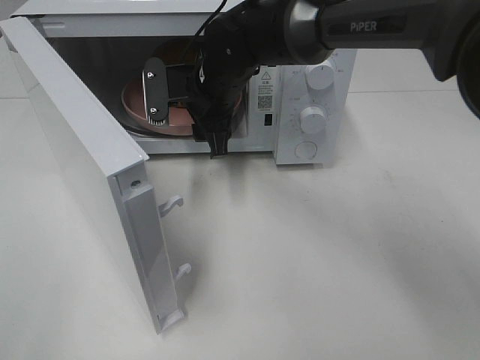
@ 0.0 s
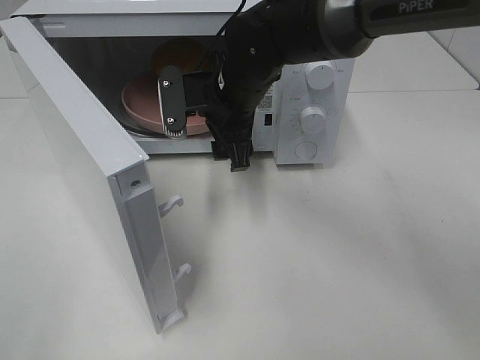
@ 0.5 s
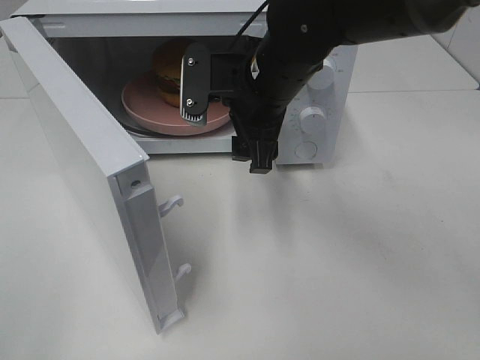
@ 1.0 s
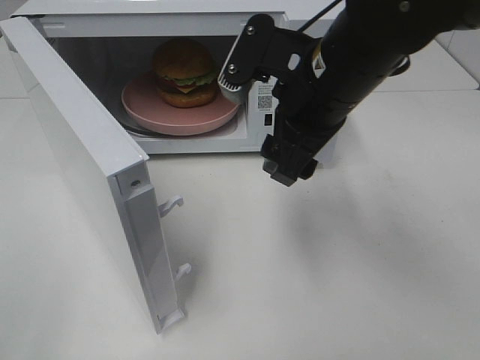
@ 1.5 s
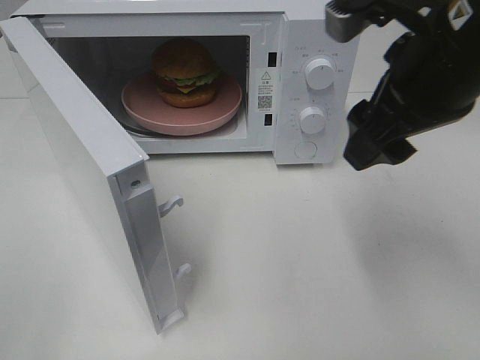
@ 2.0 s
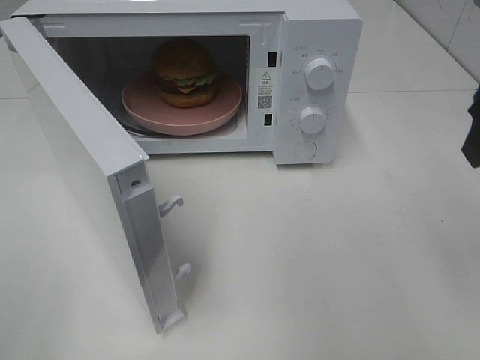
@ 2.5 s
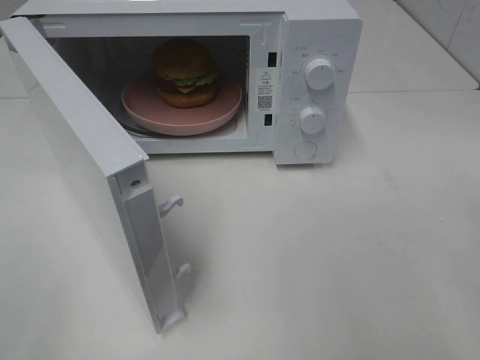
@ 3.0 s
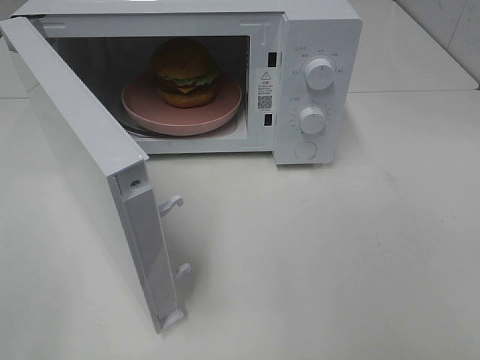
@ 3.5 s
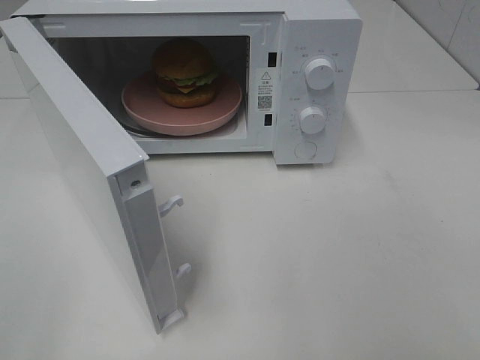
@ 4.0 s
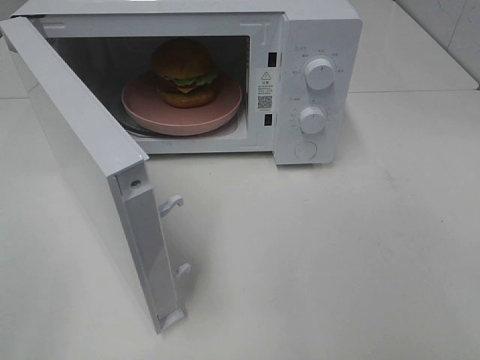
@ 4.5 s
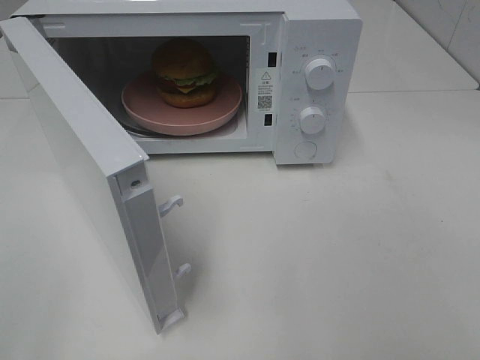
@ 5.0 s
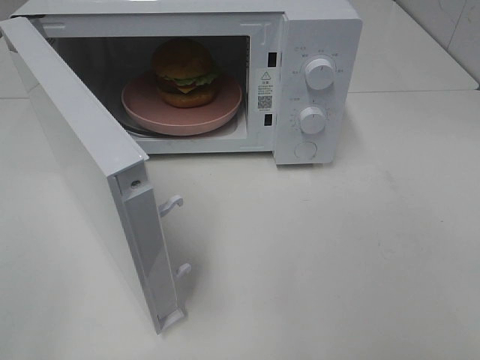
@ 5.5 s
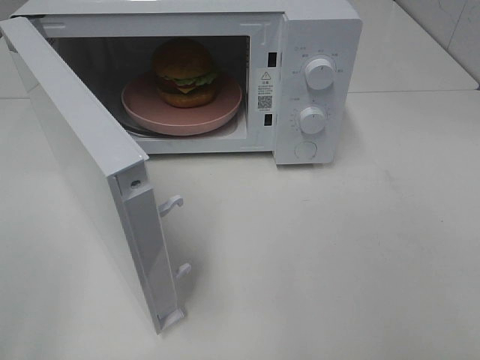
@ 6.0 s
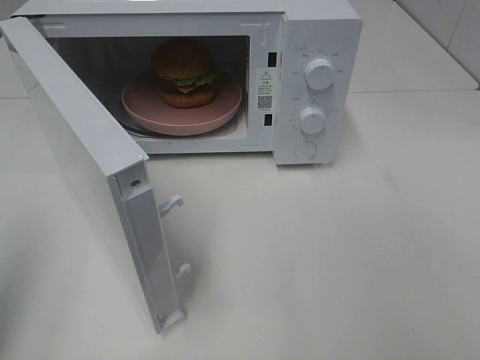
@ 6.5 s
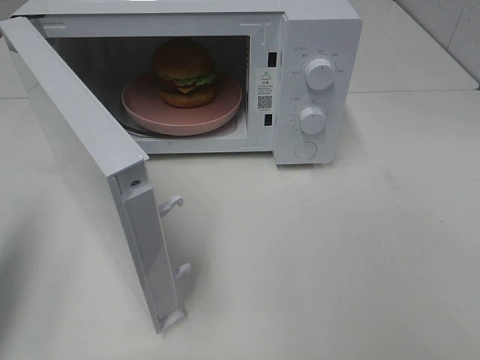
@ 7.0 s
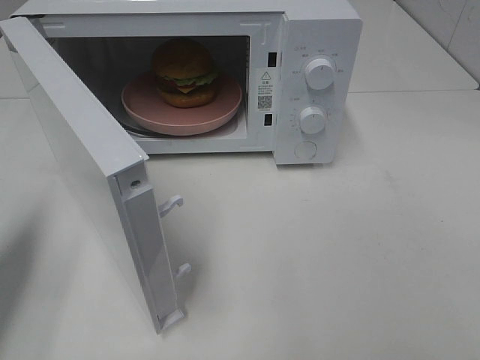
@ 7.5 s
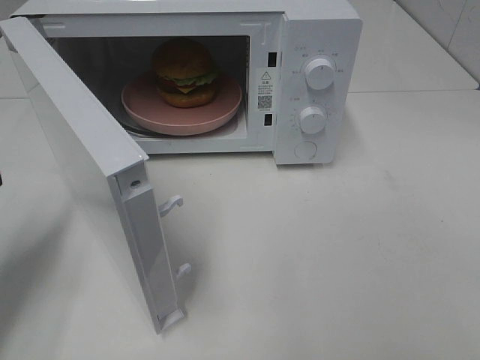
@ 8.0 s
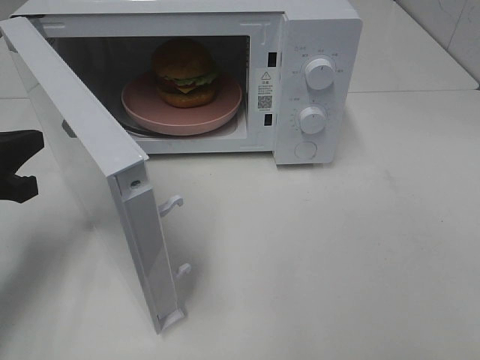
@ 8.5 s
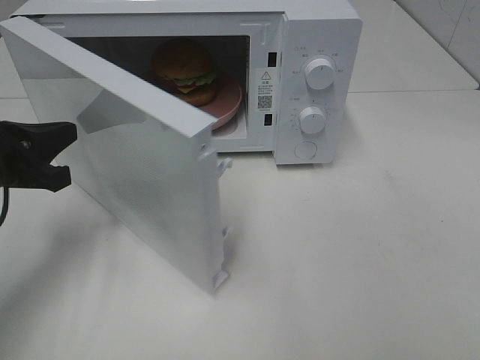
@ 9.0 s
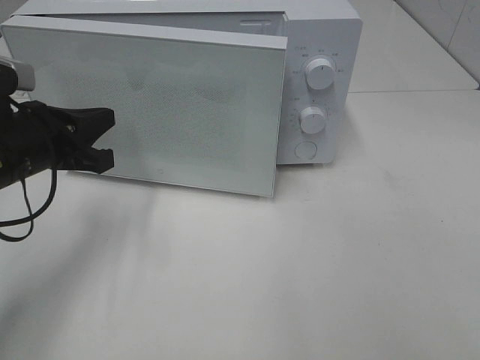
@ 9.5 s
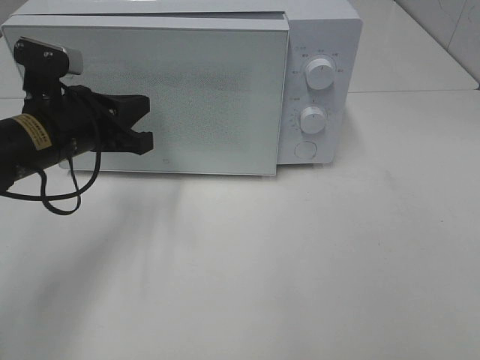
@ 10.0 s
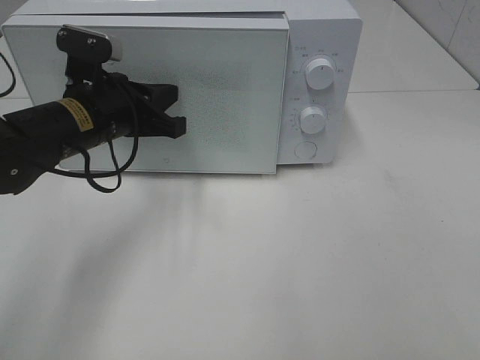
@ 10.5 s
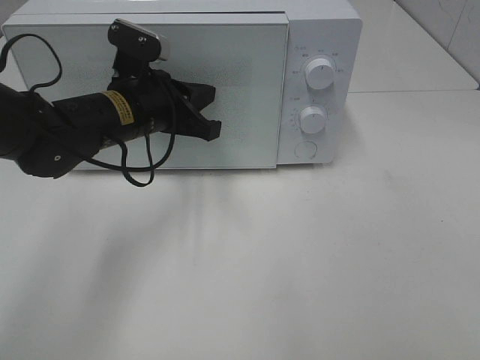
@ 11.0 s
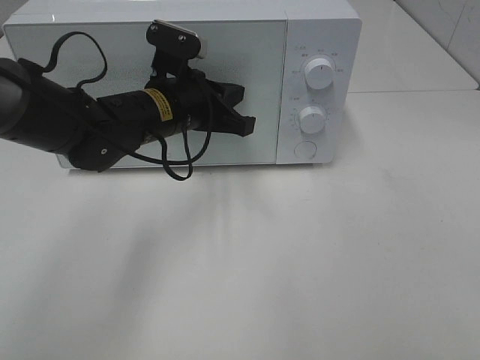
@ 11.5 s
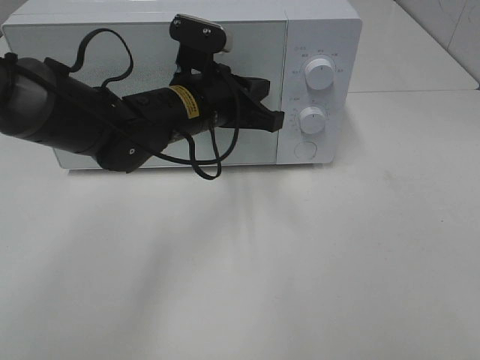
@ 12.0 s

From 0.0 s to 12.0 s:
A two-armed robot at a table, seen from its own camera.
Task of the whole recording: Heat the burger.
Step, from 0.0 s to 12.0 s: Left hand: close the microwave door.
From 0.0 s to 2.0 s: The right gripper moves to the right, backward and upward, some 30 cm.
From 2.0 s to 4.0 s: The right gripper goes about 25 cm backward and to the right.
From 6.0 s to 8.0 s: The left gripper is displaced forward and downward by roughly 25 cm, and closes its fingers.
From 8.0 s to 10.0 s: The left gripper heads to the right and forward, covering approximately 15 cm.
From 10.0 s to 12.0 s: The left gripper is displaced to the right by approximately 15 cm.

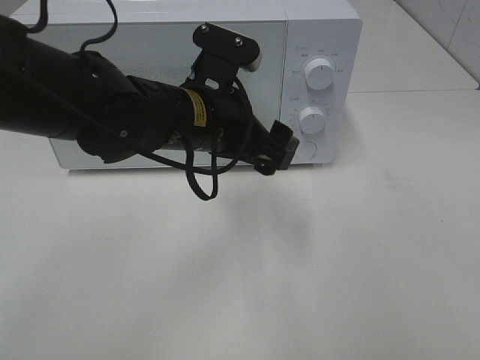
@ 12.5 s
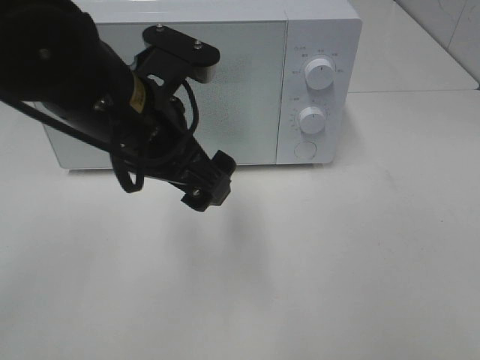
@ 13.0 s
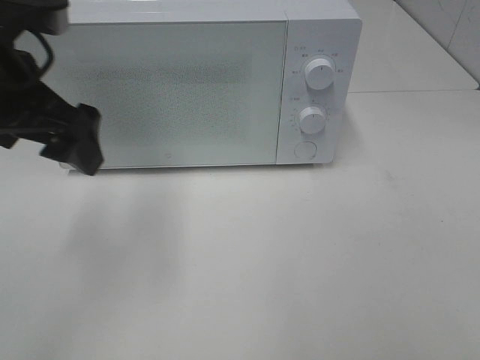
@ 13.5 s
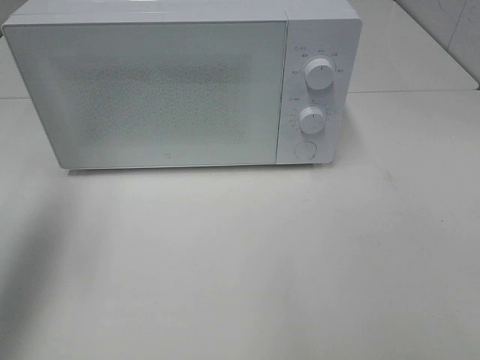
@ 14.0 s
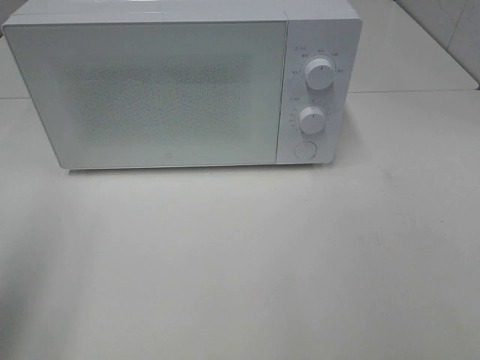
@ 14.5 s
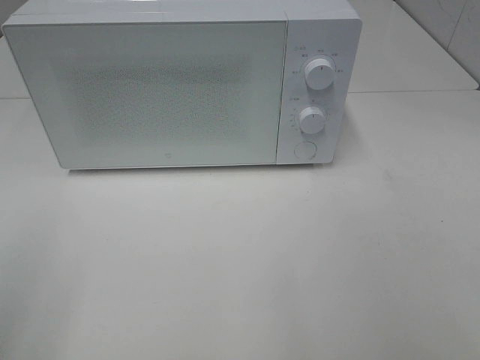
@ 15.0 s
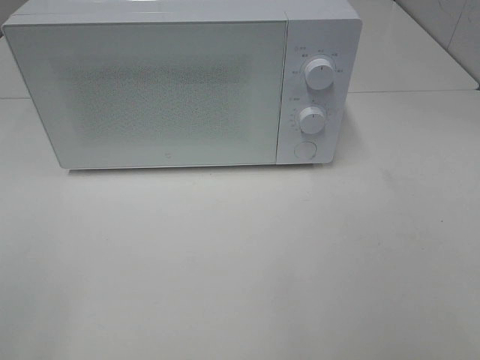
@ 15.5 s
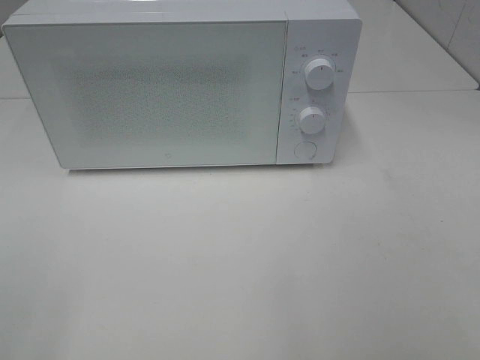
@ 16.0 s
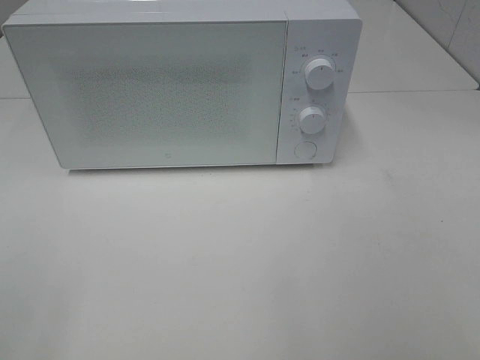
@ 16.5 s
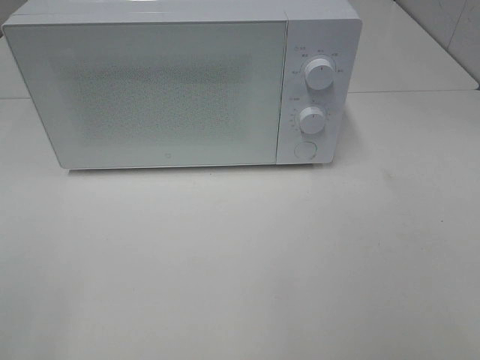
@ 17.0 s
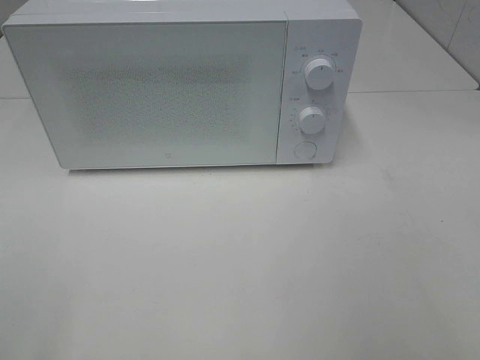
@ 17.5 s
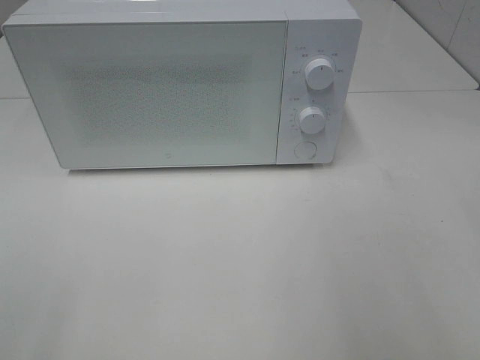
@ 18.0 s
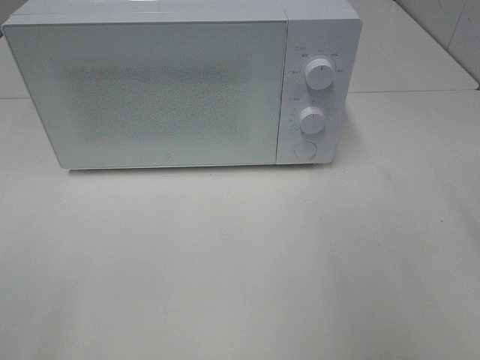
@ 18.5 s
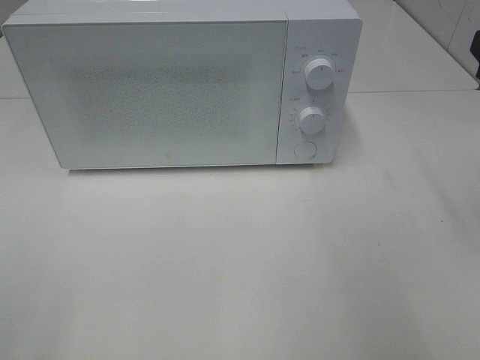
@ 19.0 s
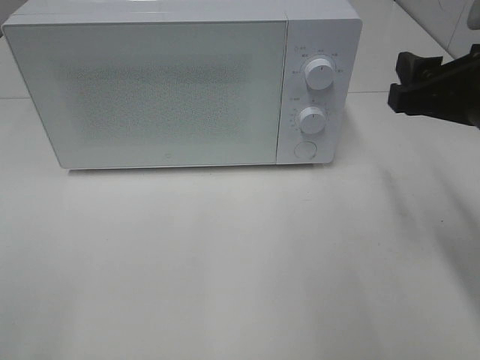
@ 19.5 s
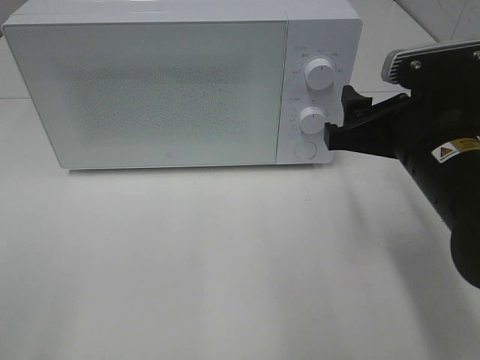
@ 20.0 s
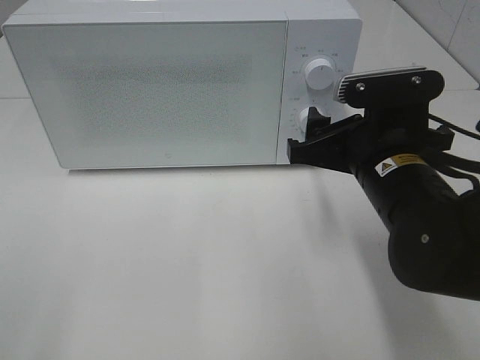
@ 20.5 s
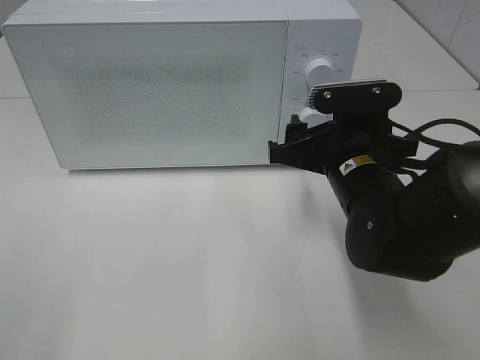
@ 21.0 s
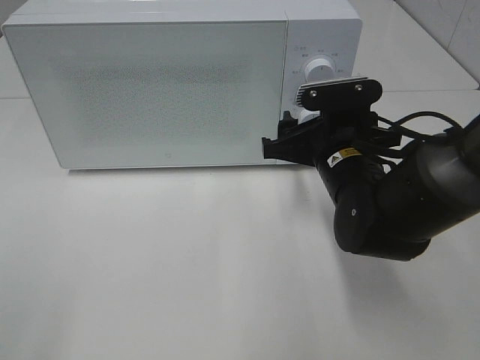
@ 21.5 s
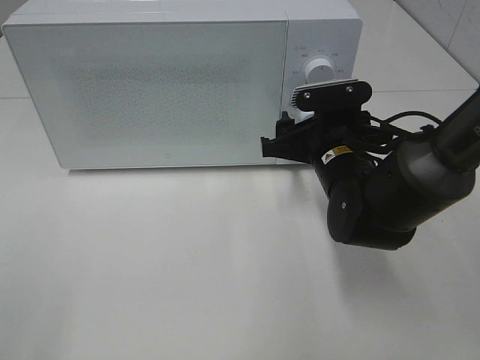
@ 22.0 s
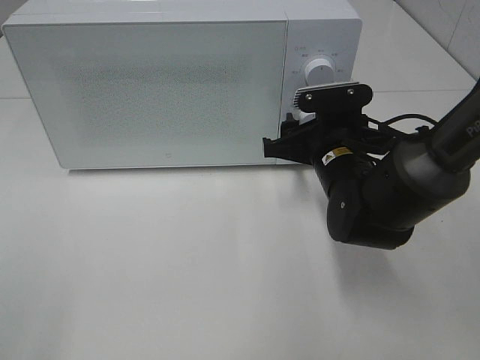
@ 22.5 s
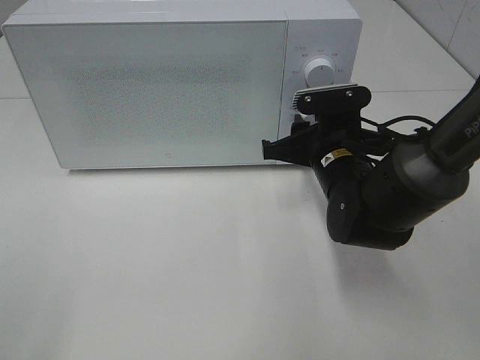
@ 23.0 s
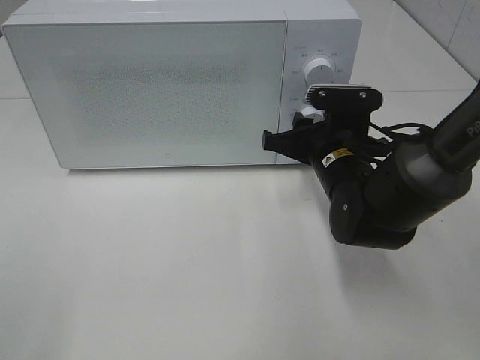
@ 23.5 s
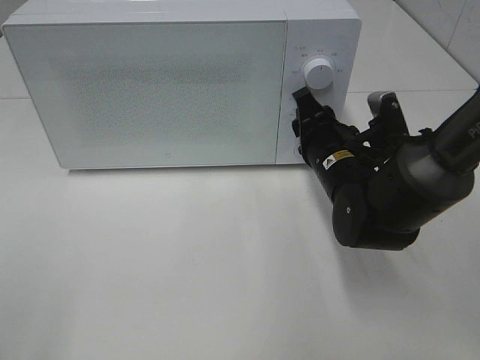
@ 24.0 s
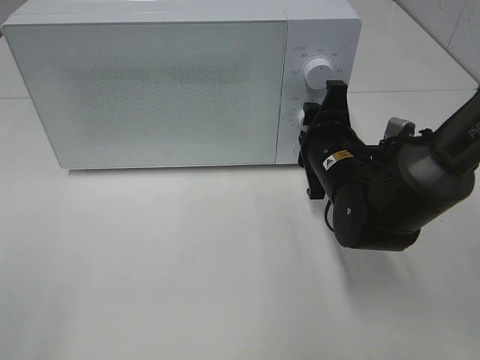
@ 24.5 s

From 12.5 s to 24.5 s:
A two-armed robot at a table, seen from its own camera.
Task of the whole recording: Heat the burger.
From 12.5 s to 14.5 s: The left gripper is displaced to the left and backward by about 30 cm.
From 14.5 s to 16.5 s: The left gripper is displaced backward by approximately 15 cm.
From 18.5 s to 20.5 s: The right gripper is displaced to the left, downward and forward by some 20 cm.
From 20.5 s to 22.5 s: The right gripper heads forward and downward, covering roughly 10 cm.

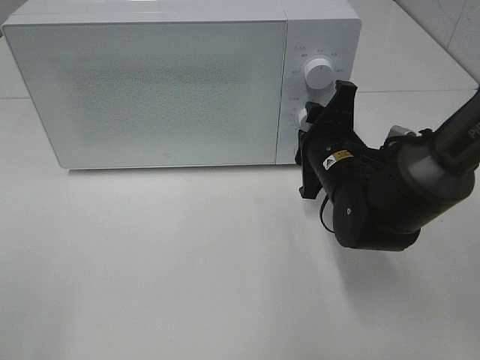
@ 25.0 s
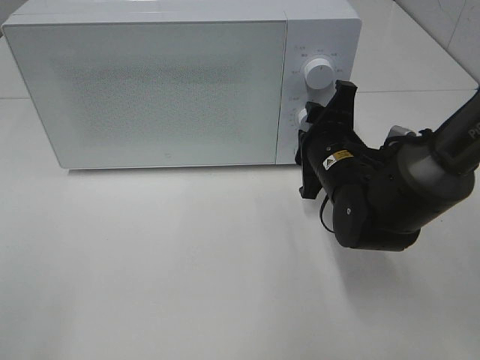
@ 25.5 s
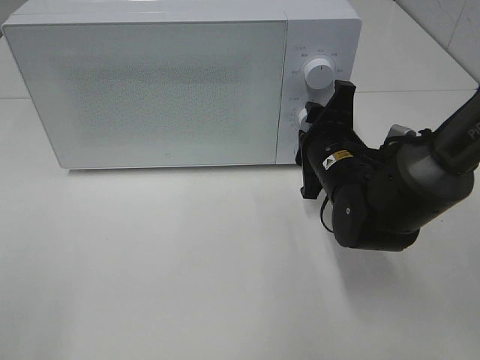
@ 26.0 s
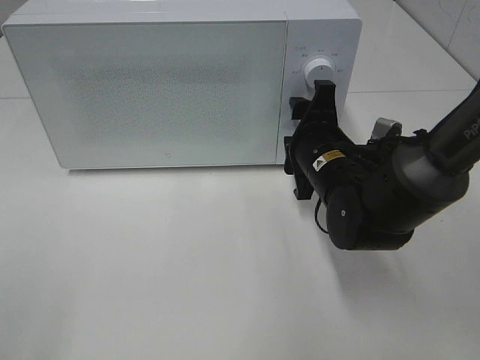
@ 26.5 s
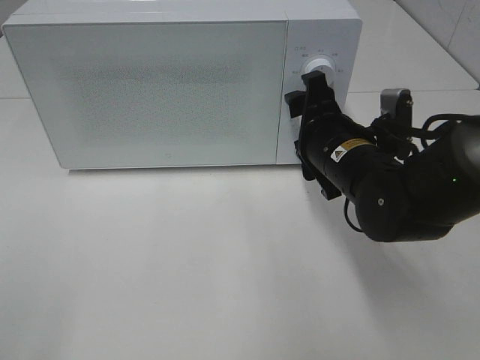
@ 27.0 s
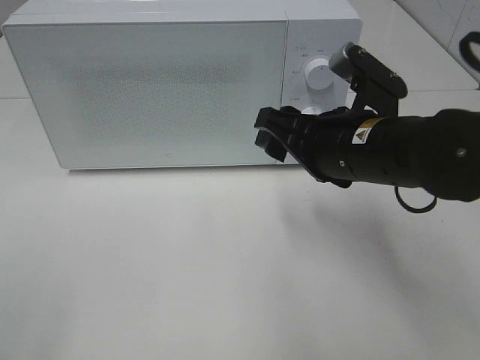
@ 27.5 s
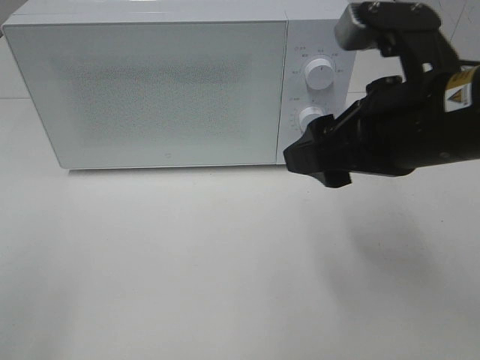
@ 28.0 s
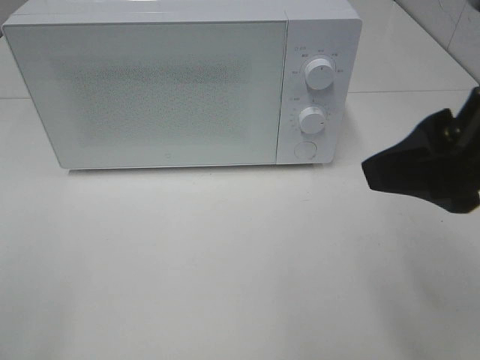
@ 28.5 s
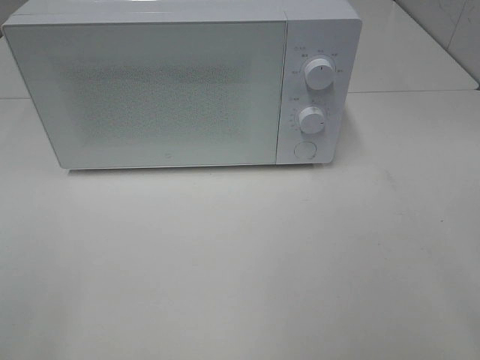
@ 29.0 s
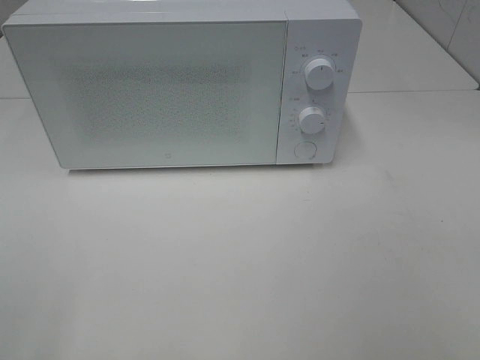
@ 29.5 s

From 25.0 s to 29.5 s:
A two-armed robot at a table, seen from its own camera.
Task of the whole recording: Heat the burger.
From 27.0 s to 29.5 s: The right gripper heads backward, to the right and upward, covering about 35 cm.
